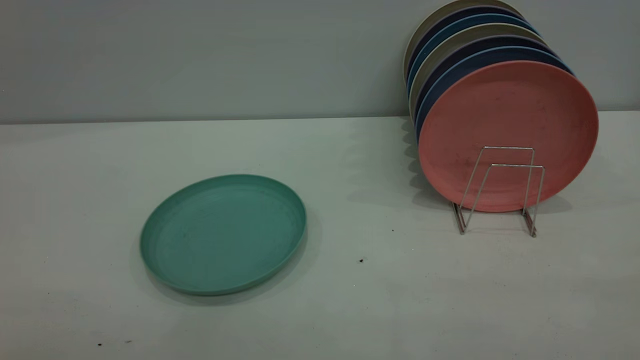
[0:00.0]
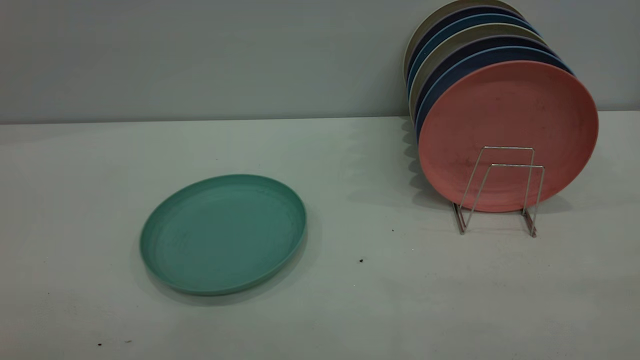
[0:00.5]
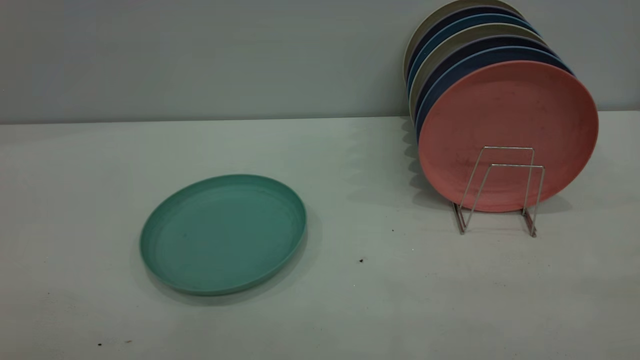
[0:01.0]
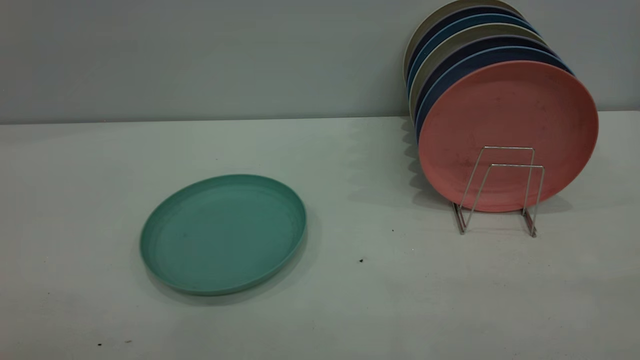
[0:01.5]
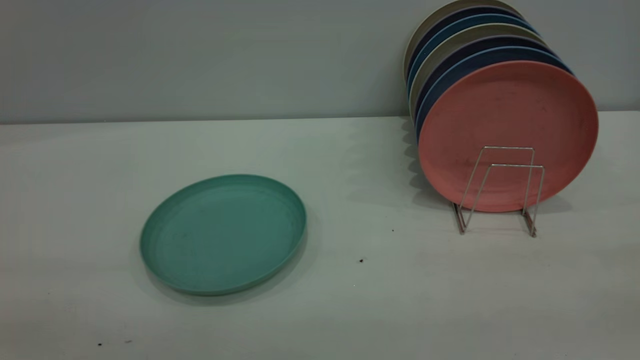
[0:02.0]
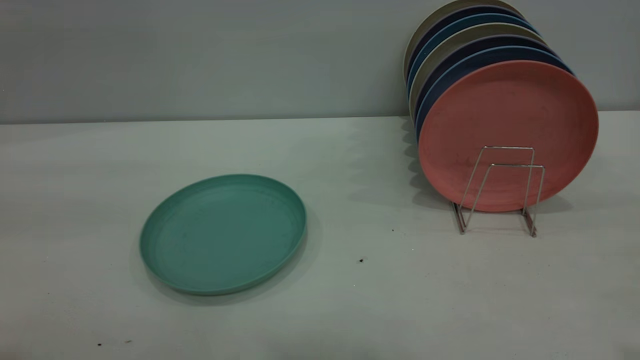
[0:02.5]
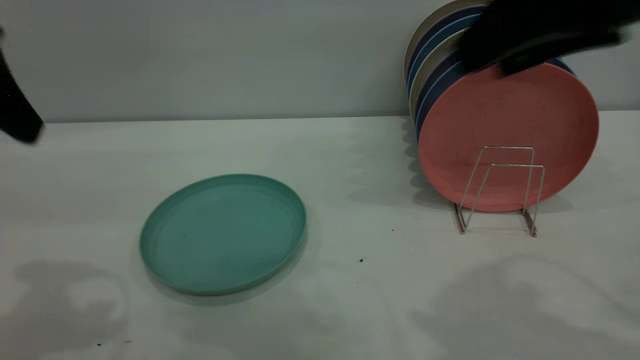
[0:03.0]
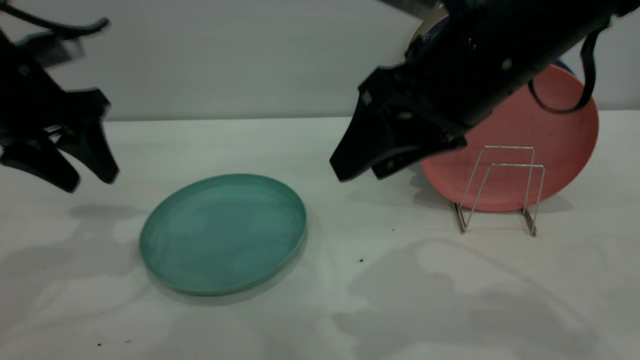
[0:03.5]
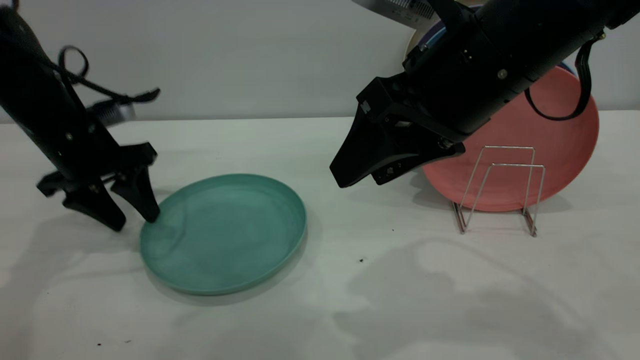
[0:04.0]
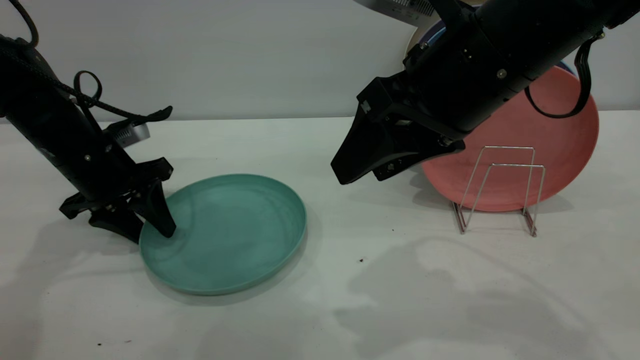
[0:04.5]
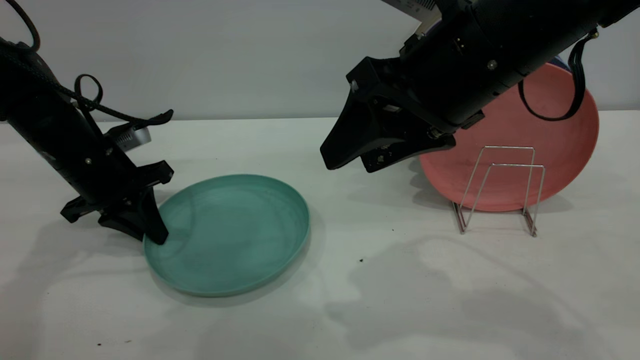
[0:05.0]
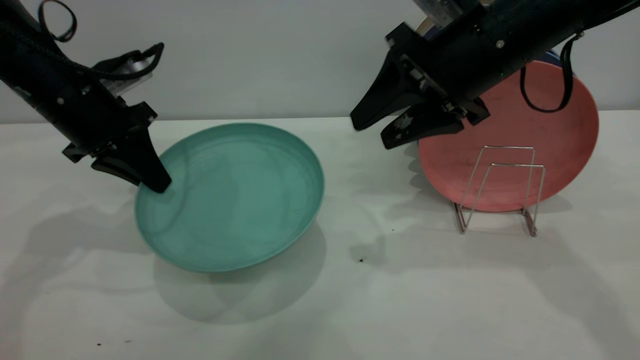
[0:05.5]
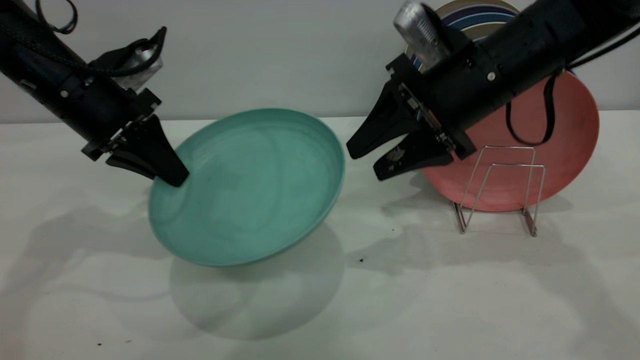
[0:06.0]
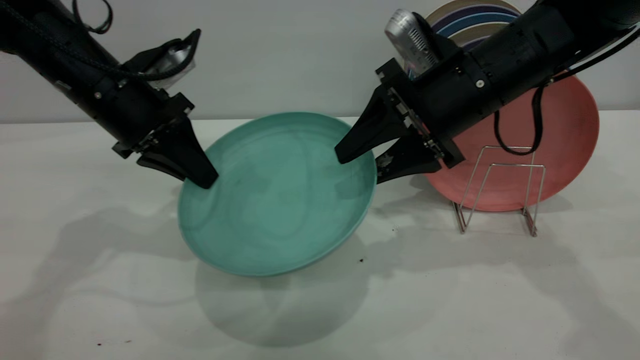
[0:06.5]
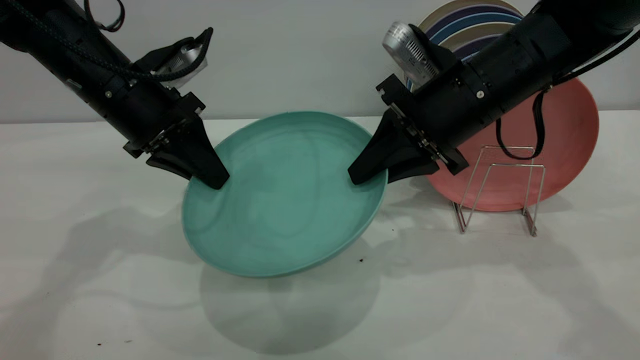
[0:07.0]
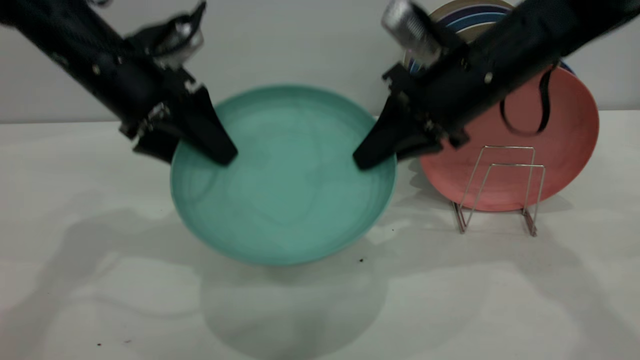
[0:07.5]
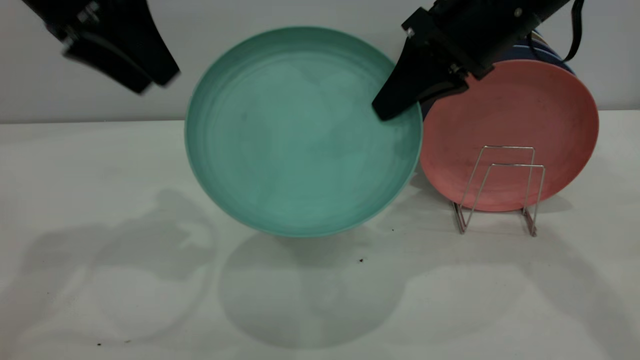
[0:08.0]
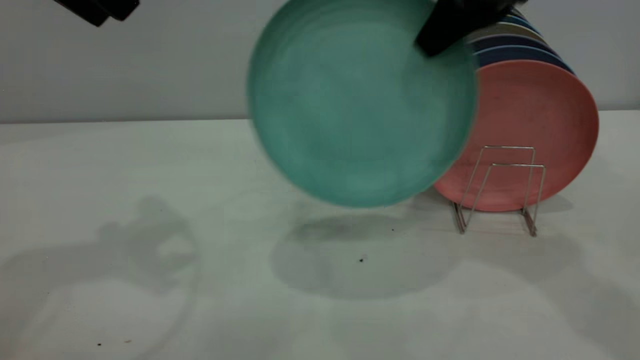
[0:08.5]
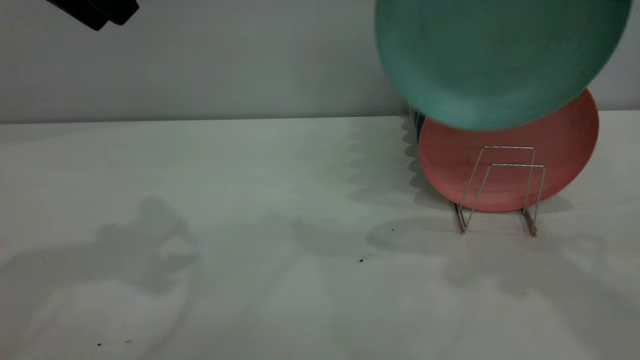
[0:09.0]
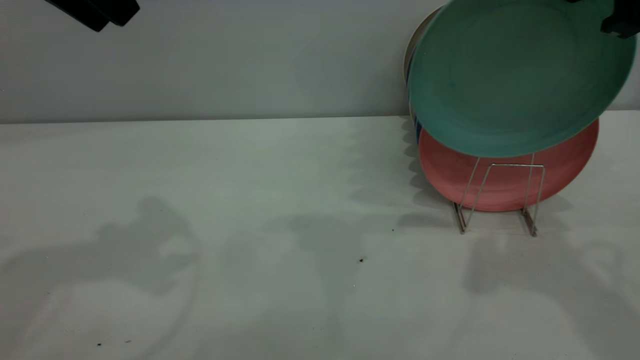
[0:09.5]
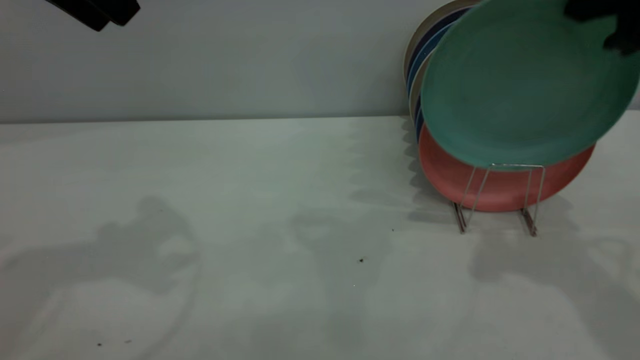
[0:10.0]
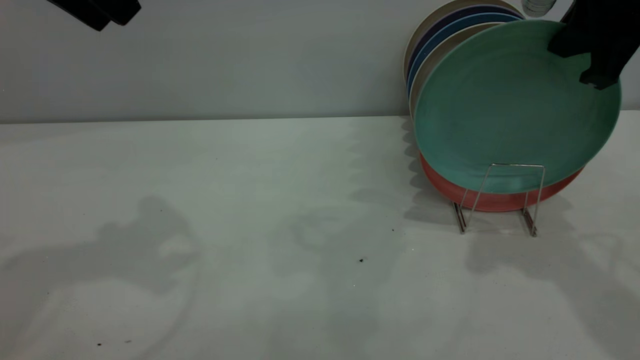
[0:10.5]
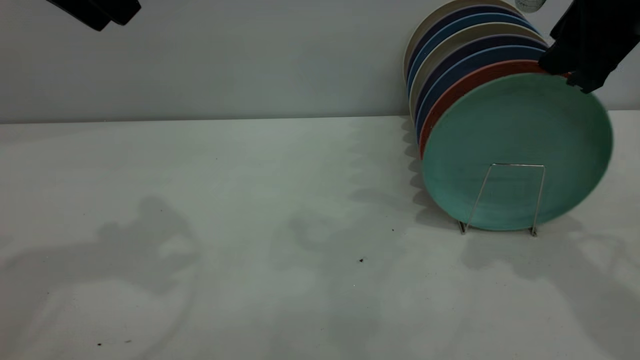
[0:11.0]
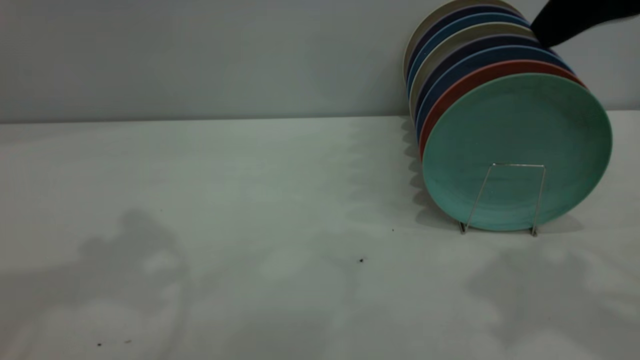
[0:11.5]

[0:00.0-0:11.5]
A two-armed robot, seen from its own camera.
Task of the whole recording: the left gripper grasp the green plate, the left gripper pass the green plate to the right gripper, and the right gripper place the green plate on the plate rack.
Step, 0:00.0 to 0:05.0: Pick up the plate with the left gripper.
Step, 0:05.5 to 0:08.0: Pass the plate from the left gripper to the right gripper.
Step, 0:08.5 to 0:11.5: Place the plate on the shelf.
0:02.0 to 0:04.0: The left gripper heads forward and downward, covering approximately 50 cm. Meanwhile the right gripper shifts some 35 cm forward, to the left and downward.
0:04.0 to 0:06.0: The left gripper is displaced upward by some 5 cm, and closes its fingers. Meanwhile the right gripper heads forward and downward, covering approximately 10 cm.
0:06.0 to 0:07.5: The right gripper closes up. The left gripper changes place by approximately 5 cm, and opens up.
0:07.5 to 0:09.5: The right gripper goes some 15 cm upward, to the right and backward; the left gripper travels upward by roughly 15 cm.
0:09.5 to 0:11.5: The left gripper moves upward, roughly 5 cm, while the right gripper goes about 5 cm backward, and opens up.
